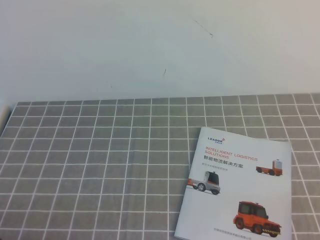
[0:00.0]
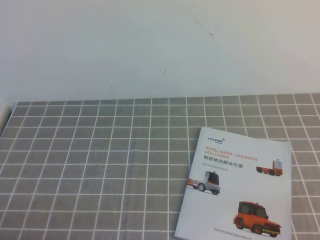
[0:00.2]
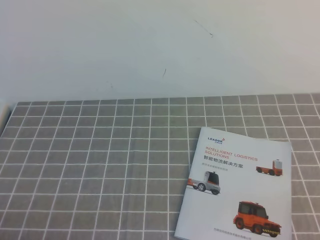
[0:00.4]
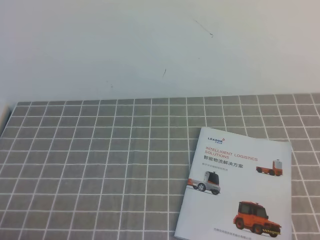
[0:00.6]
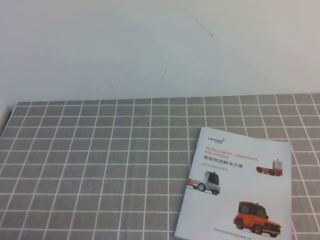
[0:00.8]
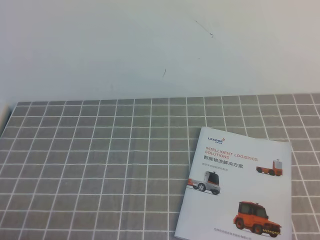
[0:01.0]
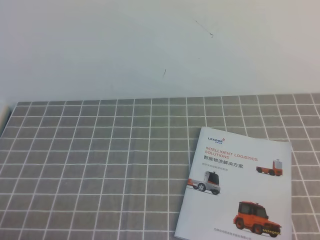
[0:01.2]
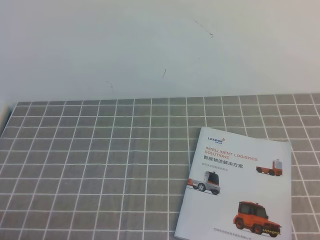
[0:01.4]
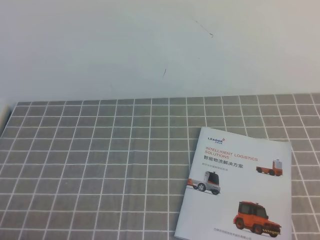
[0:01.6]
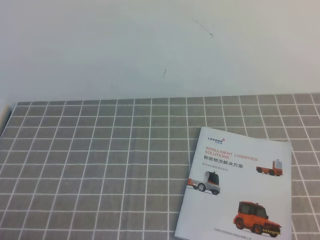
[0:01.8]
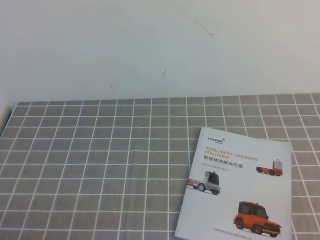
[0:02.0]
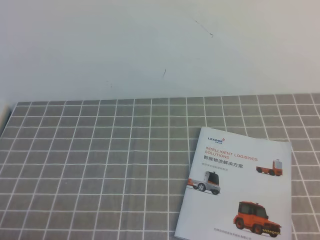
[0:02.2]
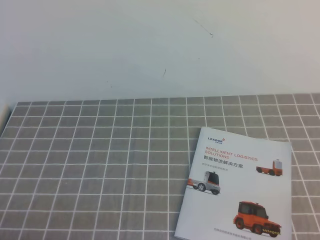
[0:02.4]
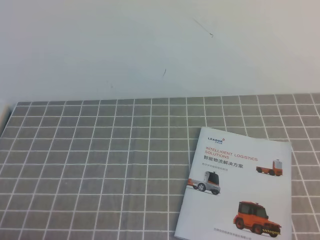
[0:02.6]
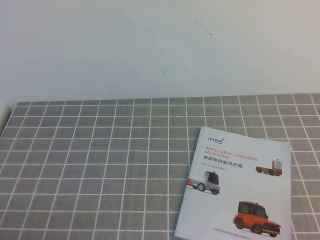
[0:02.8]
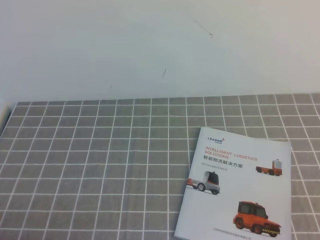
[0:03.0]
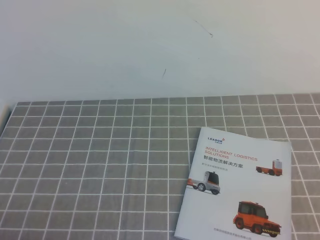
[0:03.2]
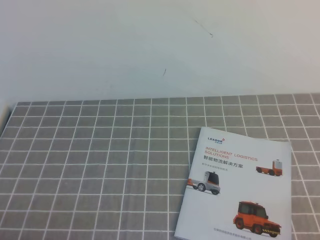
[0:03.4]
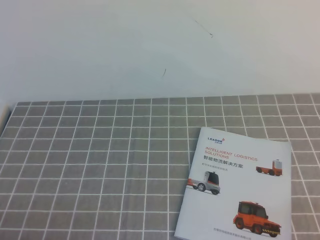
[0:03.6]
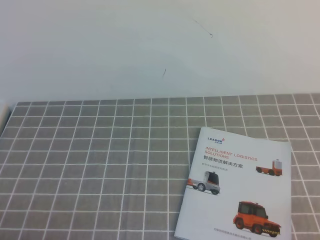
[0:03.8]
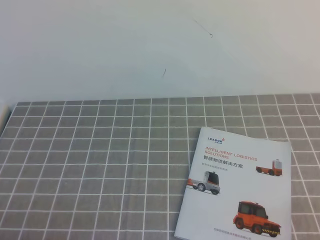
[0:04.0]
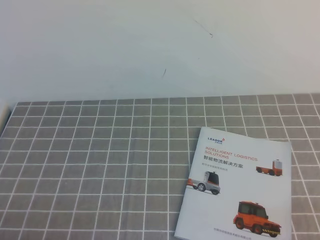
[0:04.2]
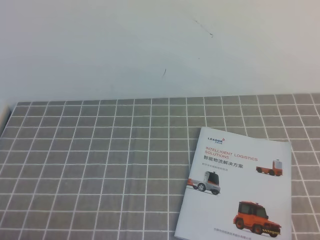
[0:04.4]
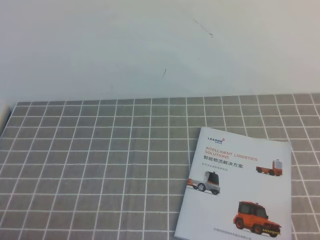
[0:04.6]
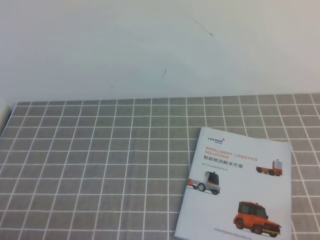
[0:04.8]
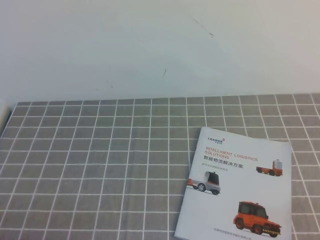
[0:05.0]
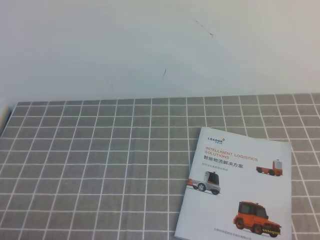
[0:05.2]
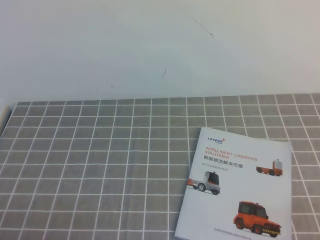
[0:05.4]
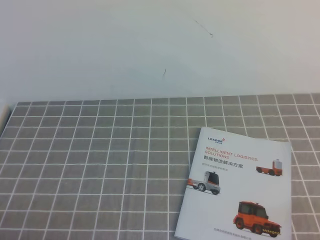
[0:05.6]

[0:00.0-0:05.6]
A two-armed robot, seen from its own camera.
Task of the whole recording: on the grey tablecloth, hold the book with one hand and close it with the other.
0:00.0 to 0:01.4: The two grippers keep their place.
0:04.2 to 0:05.6: Neither gripper changes place.
